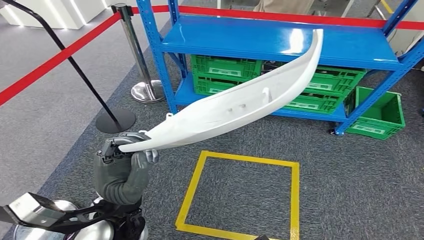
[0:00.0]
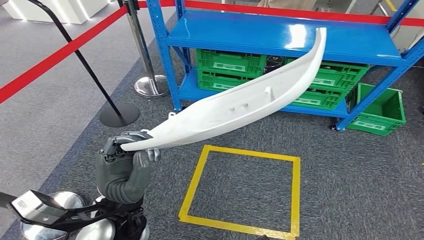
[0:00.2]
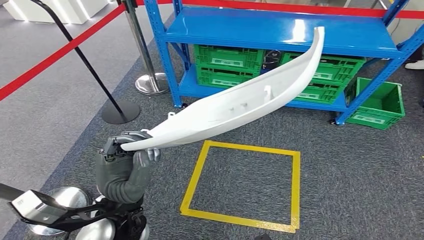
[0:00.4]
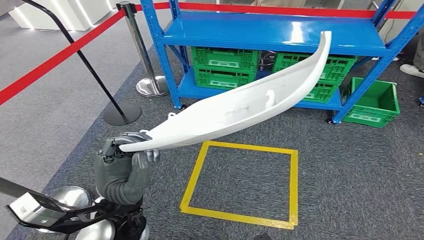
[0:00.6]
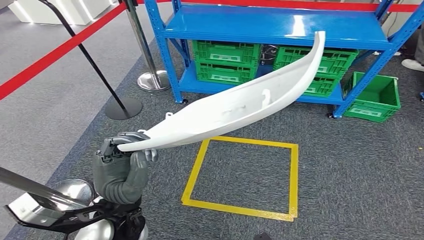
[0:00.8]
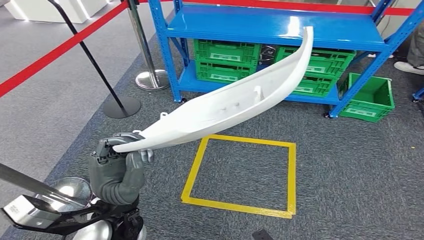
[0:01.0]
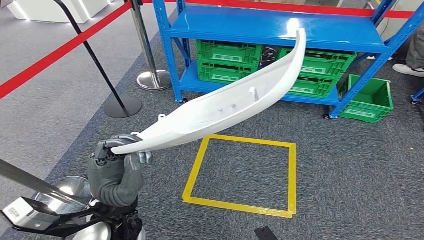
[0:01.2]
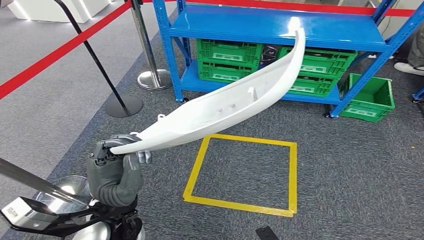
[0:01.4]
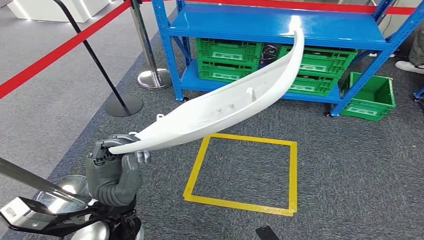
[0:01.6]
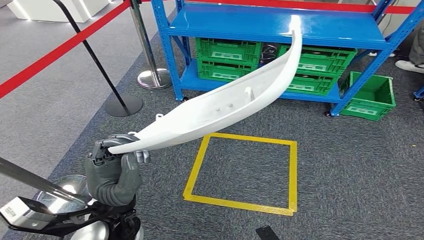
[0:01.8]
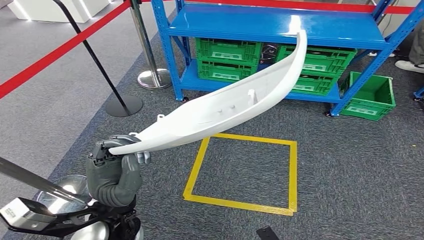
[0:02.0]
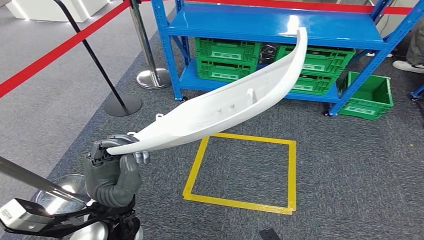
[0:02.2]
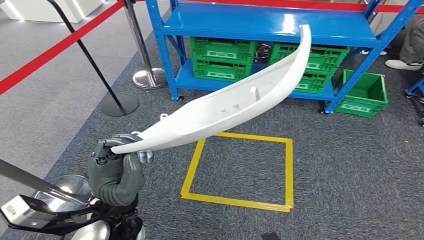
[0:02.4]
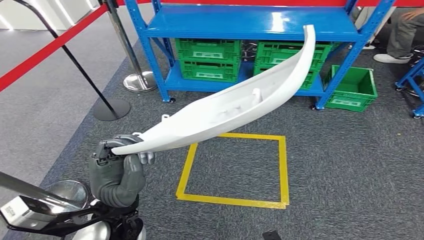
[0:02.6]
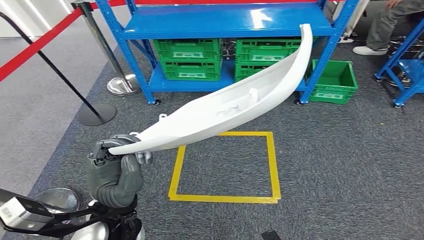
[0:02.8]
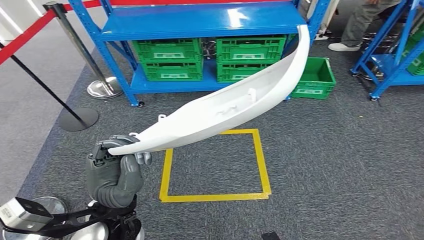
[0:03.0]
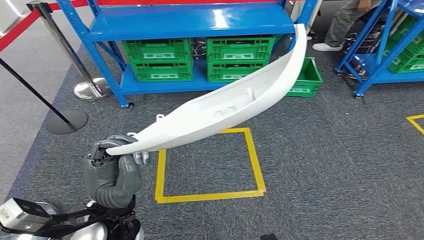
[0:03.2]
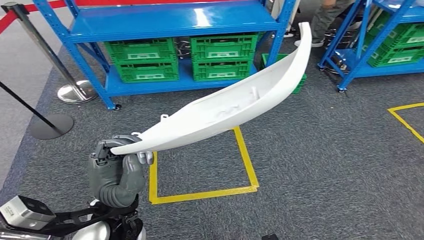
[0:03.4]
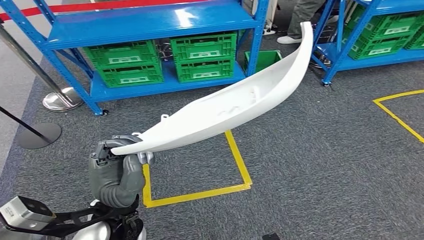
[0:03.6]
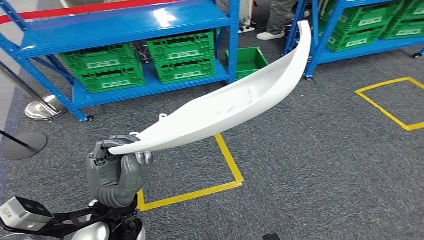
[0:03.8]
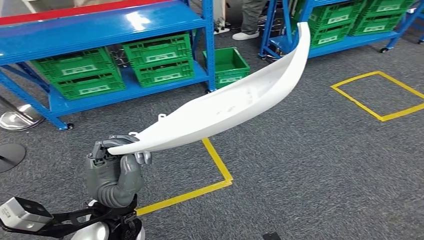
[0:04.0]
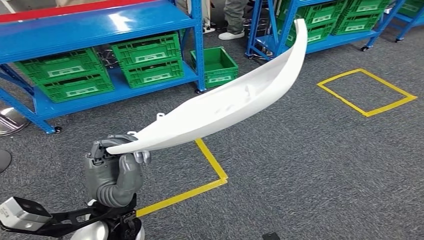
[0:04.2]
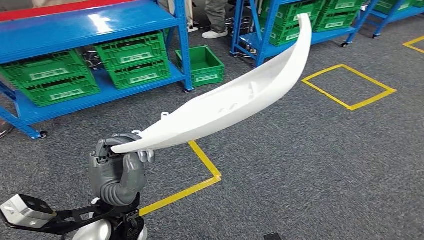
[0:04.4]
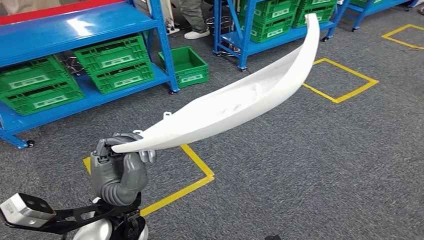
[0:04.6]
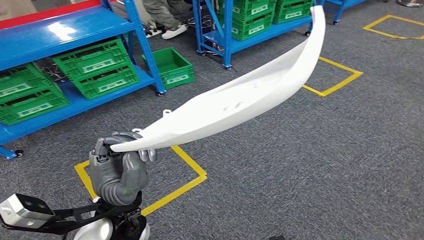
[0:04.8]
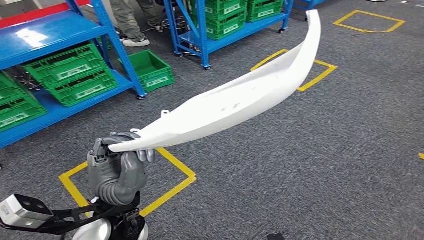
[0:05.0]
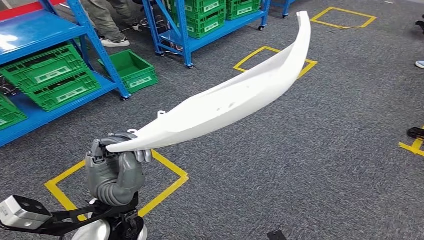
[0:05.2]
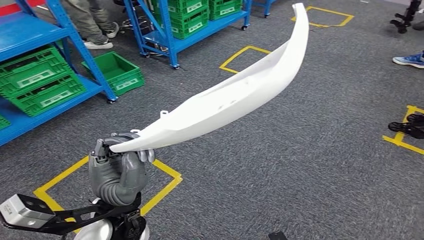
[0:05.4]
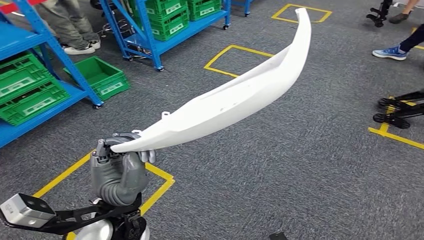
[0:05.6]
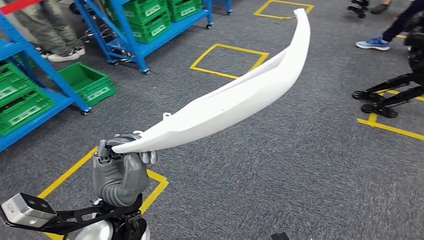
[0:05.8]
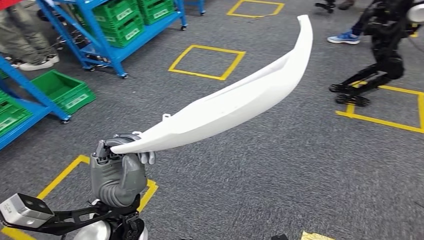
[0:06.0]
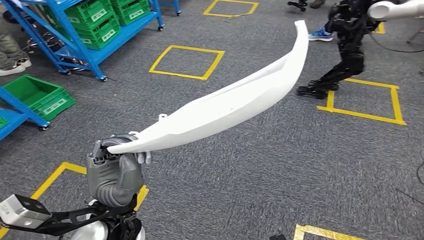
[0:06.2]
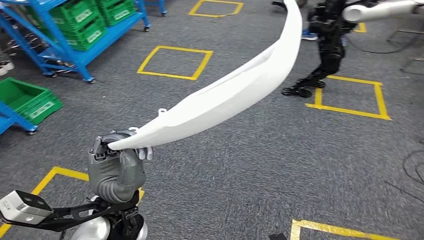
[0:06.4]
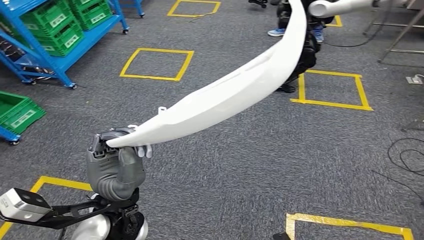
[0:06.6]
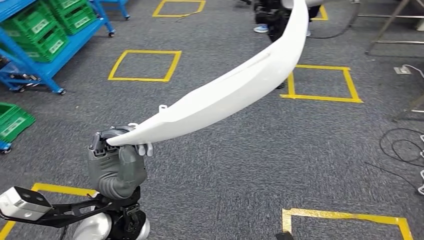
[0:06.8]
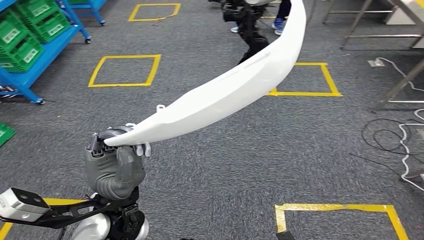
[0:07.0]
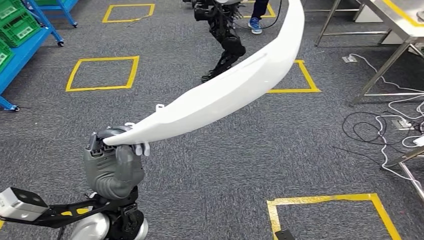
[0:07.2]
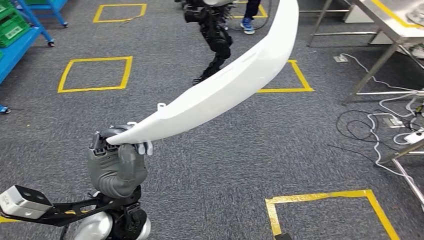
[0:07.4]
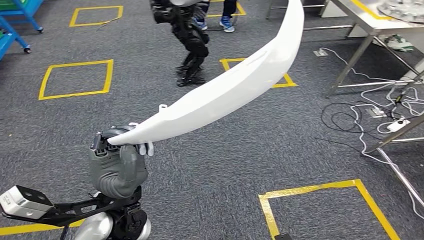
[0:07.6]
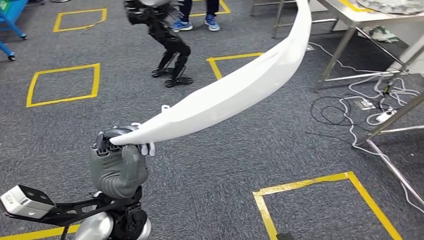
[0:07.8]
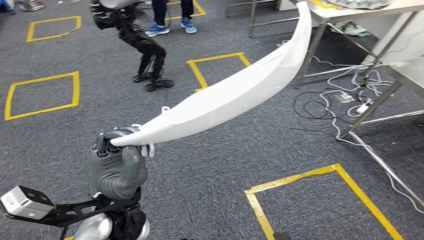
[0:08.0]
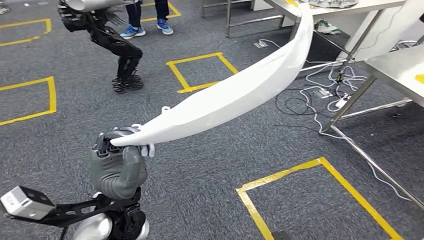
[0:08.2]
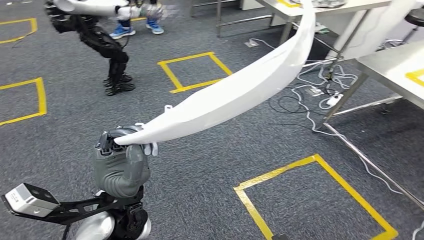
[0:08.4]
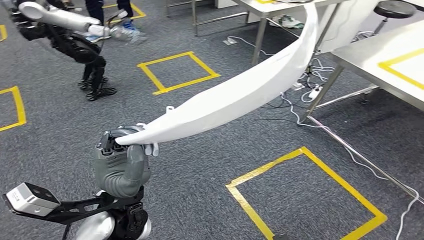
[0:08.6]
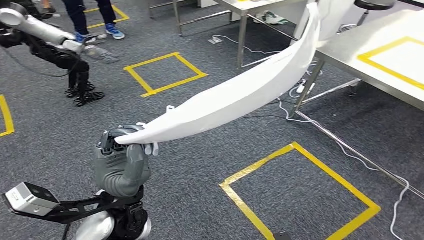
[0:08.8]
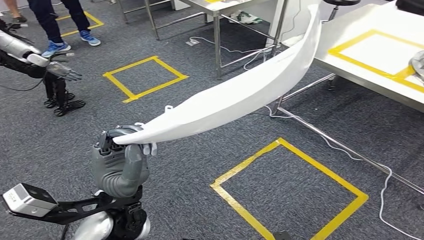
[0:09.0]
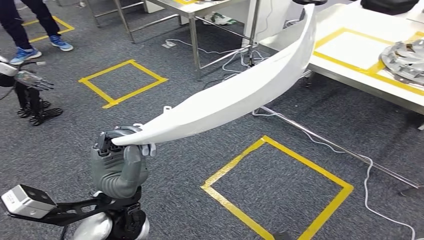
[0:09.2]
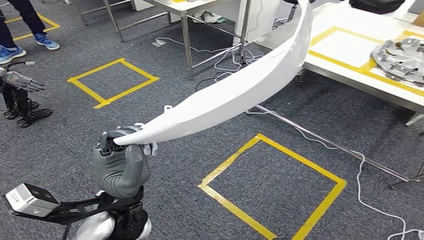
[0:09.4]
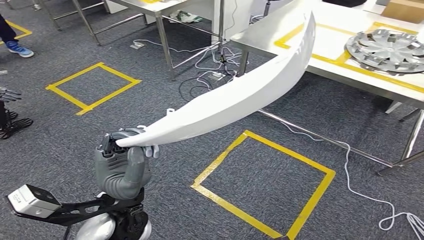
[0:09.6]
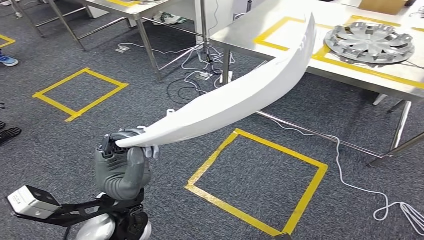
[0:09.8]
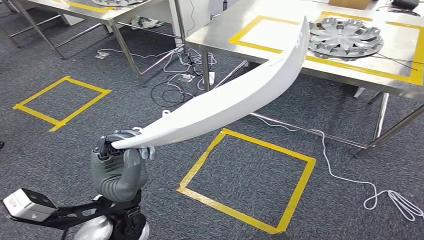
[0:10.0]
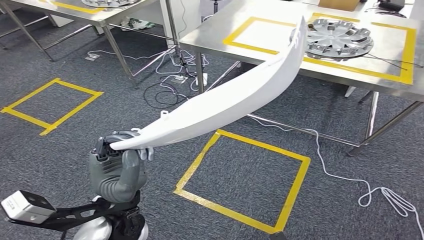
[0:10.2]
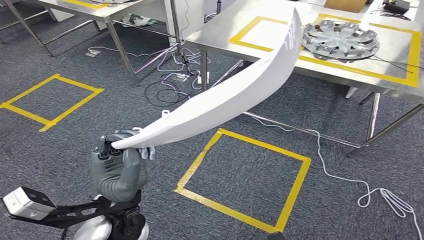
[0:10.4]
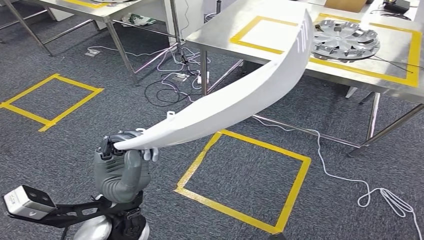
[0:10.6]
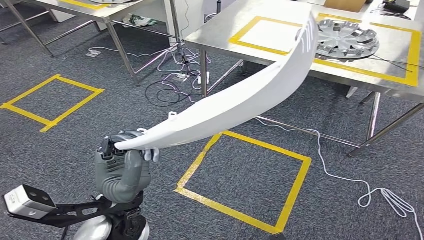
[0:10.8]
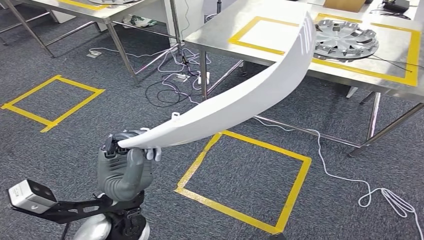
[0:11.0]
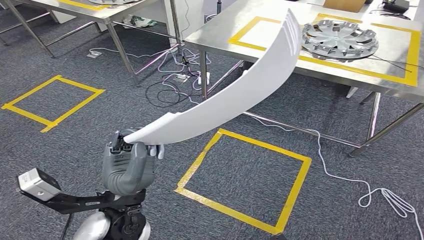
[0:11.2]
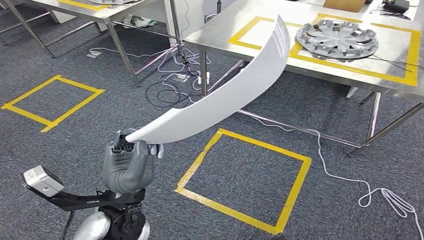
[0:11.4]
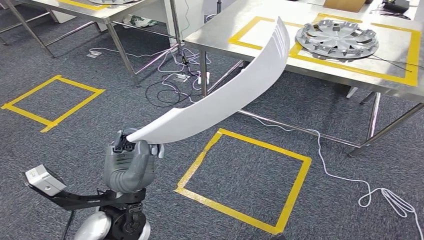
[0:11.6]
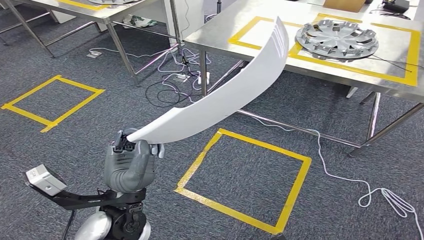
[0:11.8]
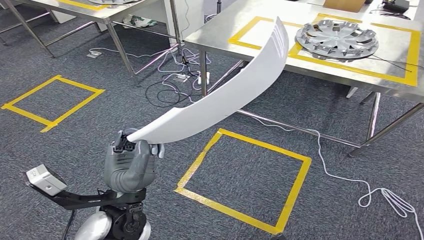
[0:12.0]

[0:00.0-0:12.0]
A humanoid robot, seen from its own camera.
0:10.4 to 0:12.0: The hands make only small movements.

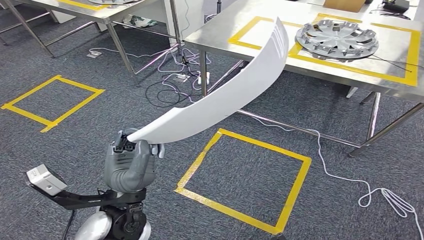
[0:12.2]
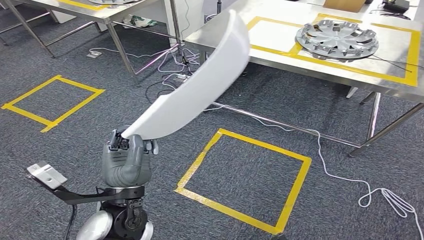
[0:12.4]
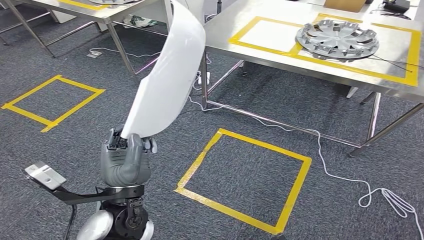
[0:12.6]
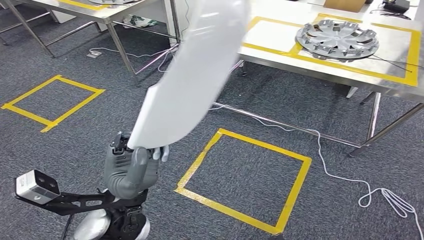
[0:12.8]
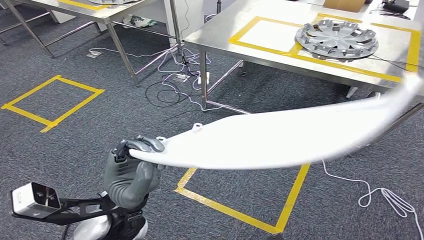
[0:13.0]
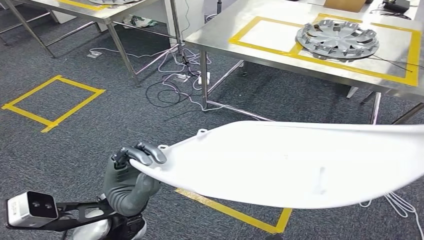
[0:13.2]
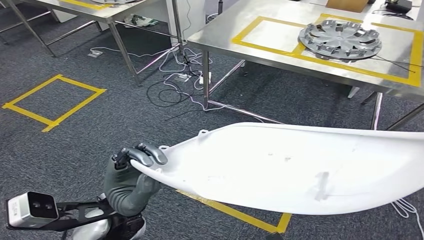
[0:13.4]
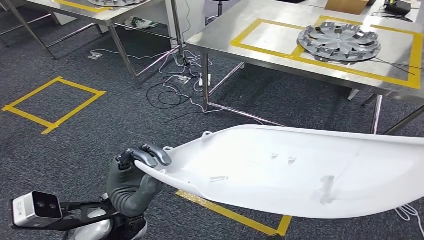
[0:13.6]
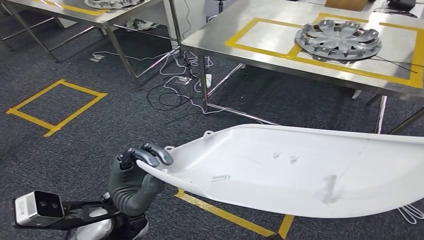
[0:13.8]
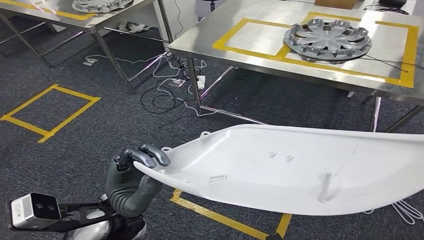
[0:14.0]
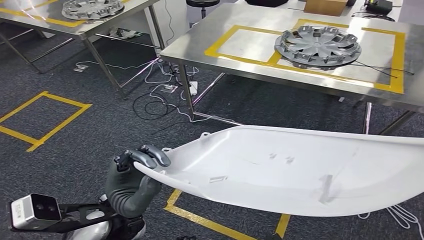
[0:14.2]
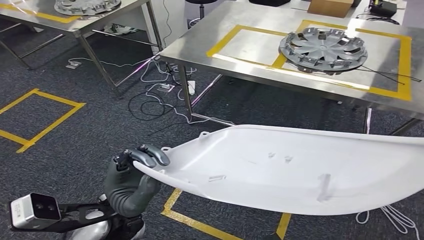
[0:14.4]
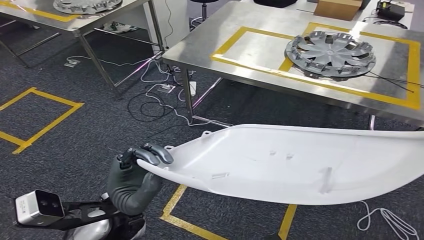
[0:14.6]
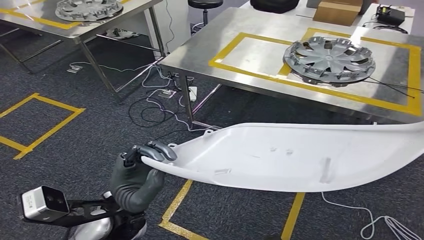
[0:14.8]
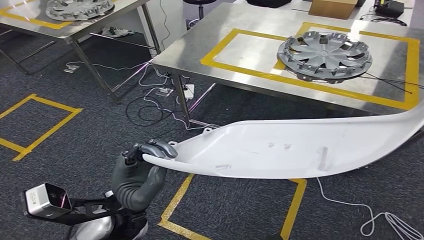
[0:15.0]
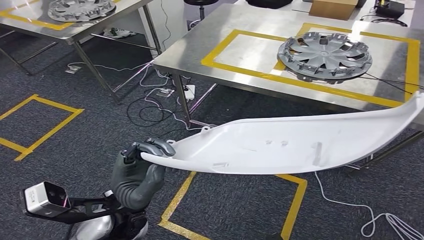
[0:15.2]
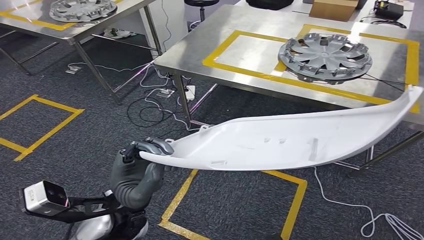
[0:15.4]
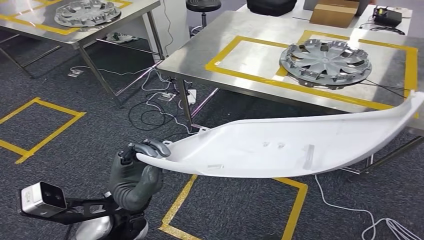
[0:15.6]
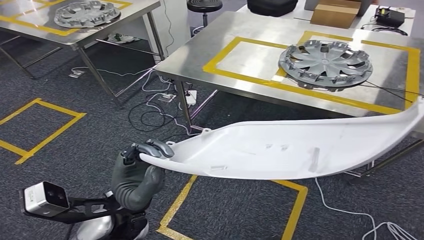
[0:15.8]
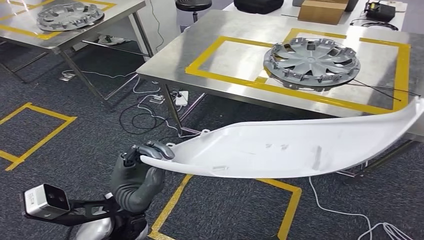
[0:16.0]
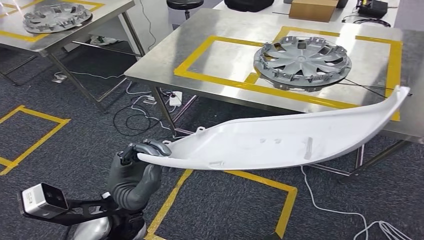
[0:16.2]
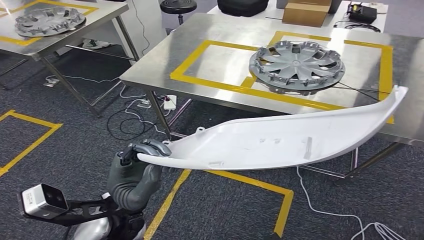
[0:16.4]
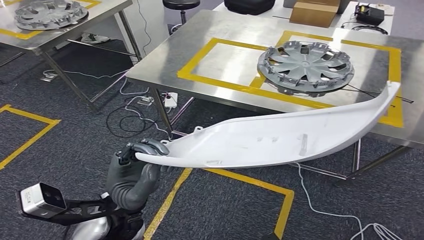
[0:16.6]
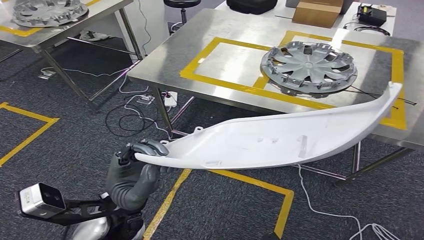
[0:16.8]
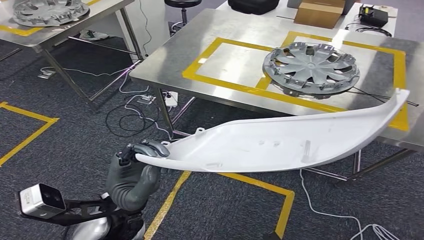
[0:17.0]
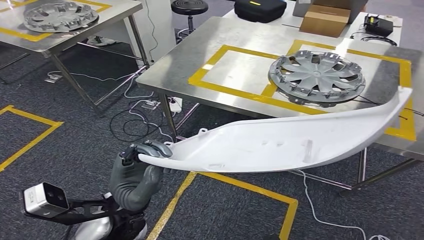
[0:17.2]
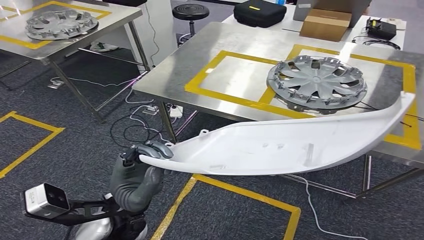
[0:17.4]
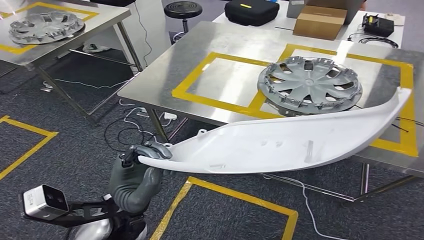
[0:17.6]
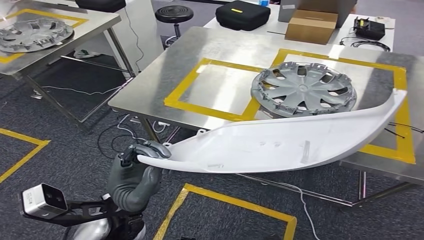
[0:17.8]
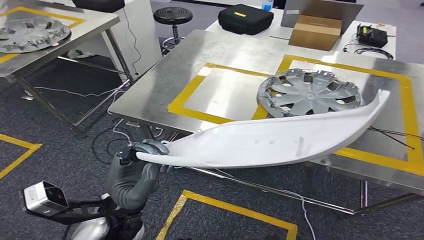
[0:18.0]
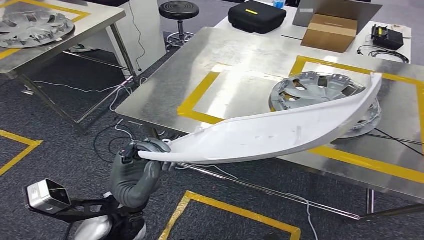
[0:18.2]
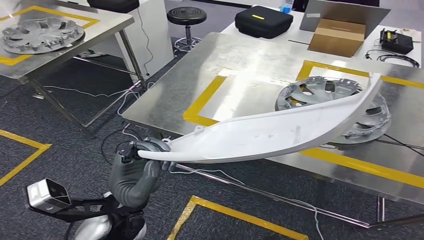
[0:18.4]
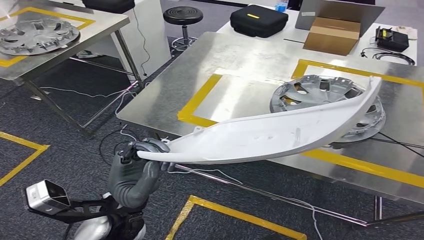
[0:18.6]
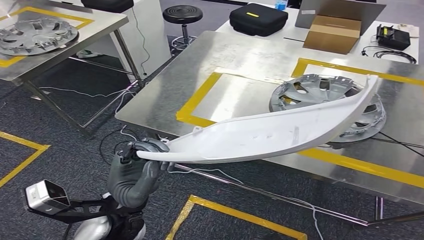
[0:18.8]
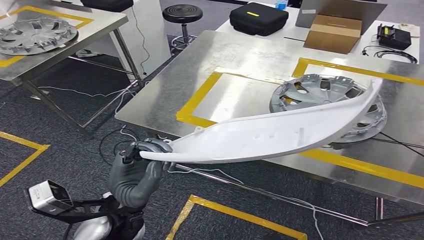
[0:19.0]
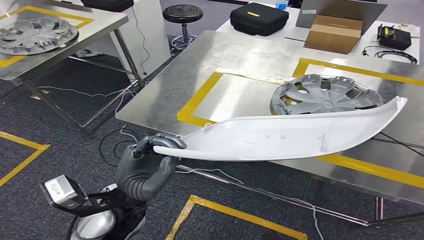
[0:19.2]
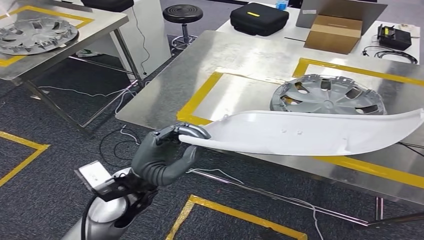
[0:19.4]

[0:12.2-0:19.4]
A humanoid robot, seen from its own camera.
Step, 0:12.2 to 0:18.6: Move the small parts to the workbench.
